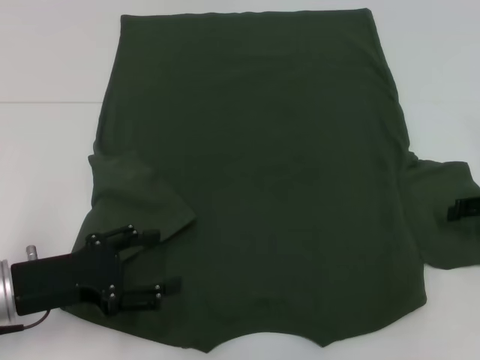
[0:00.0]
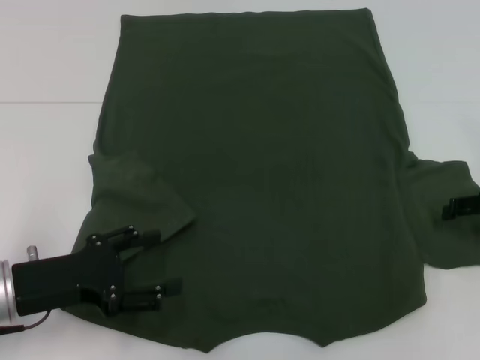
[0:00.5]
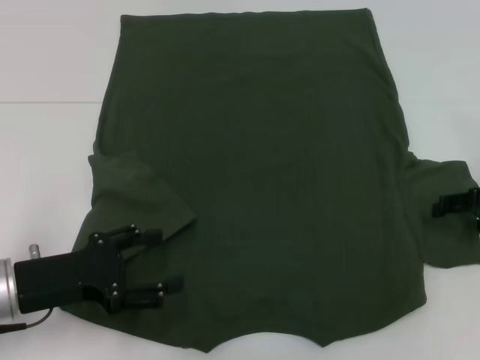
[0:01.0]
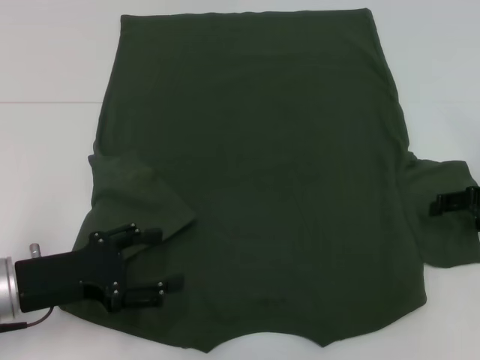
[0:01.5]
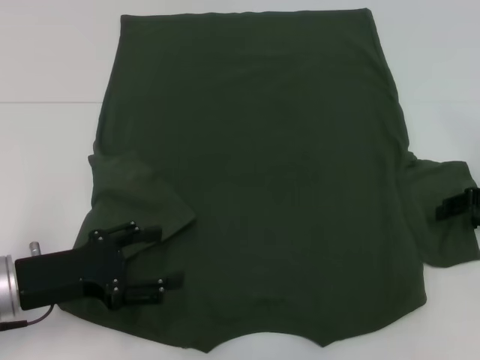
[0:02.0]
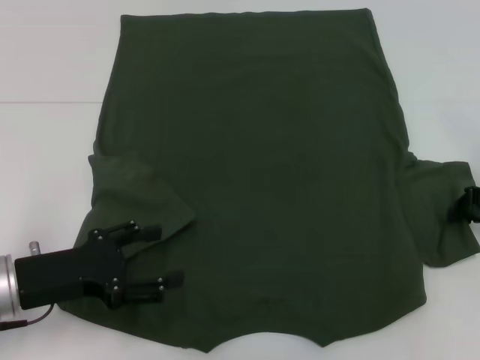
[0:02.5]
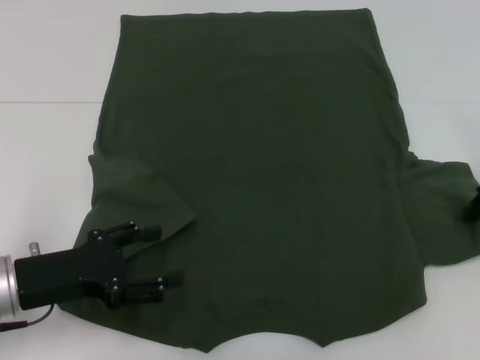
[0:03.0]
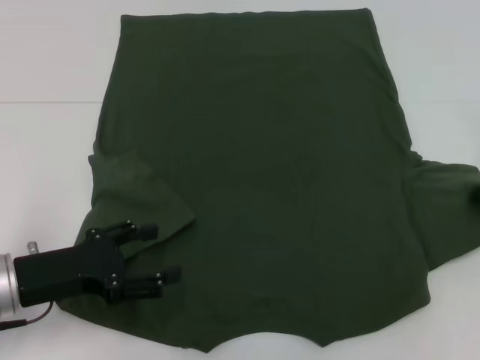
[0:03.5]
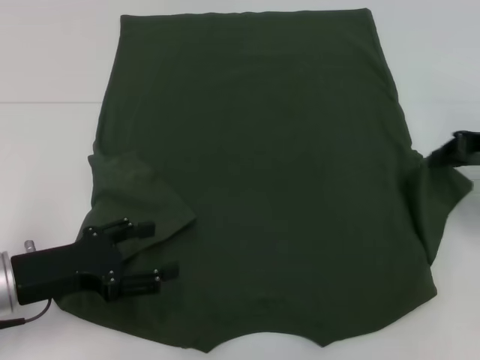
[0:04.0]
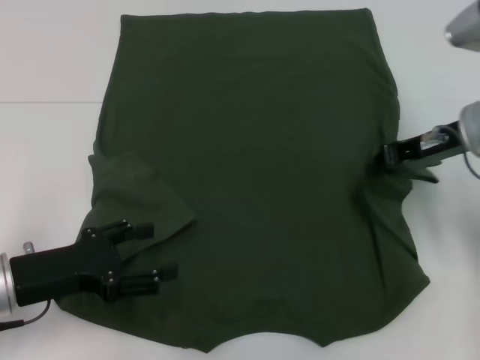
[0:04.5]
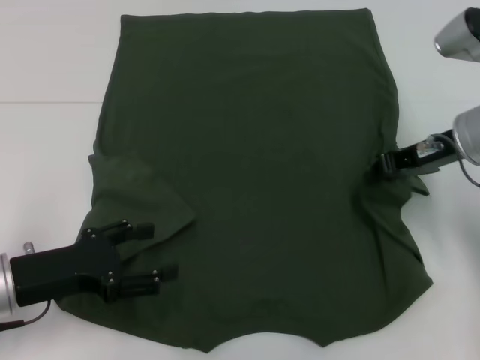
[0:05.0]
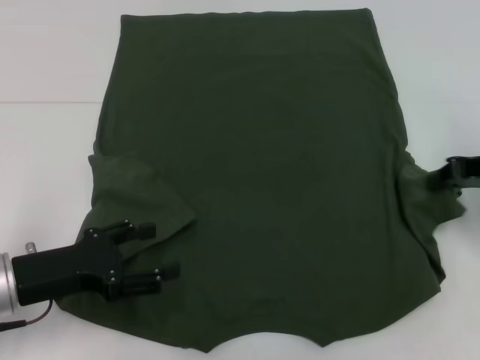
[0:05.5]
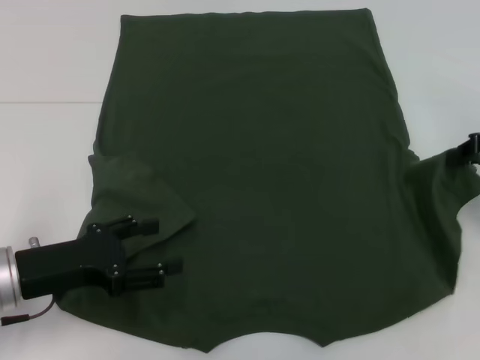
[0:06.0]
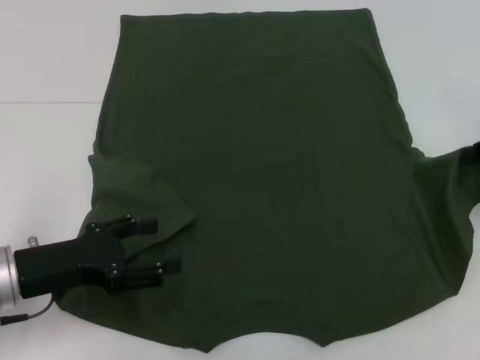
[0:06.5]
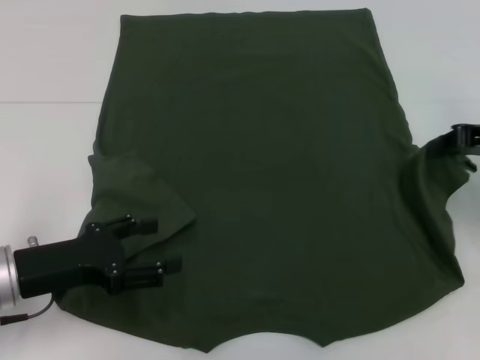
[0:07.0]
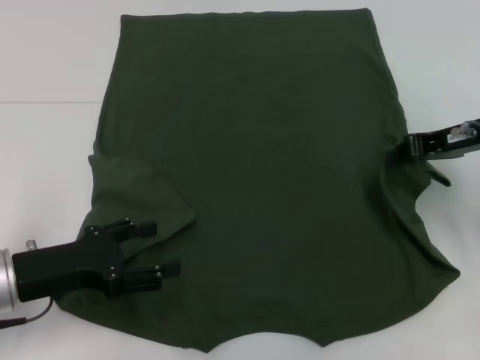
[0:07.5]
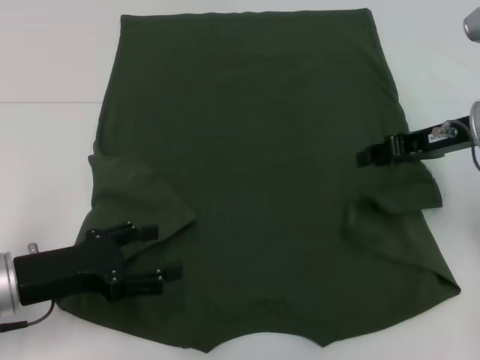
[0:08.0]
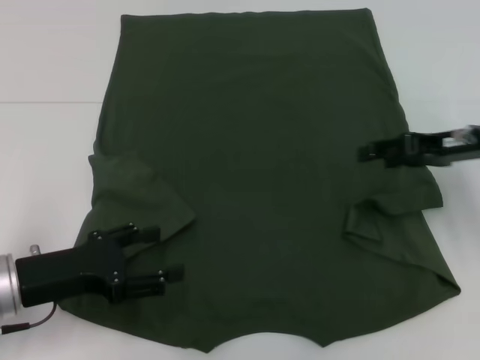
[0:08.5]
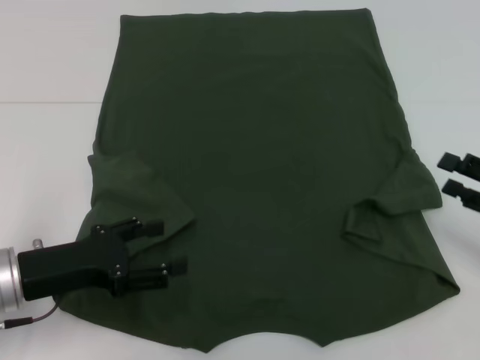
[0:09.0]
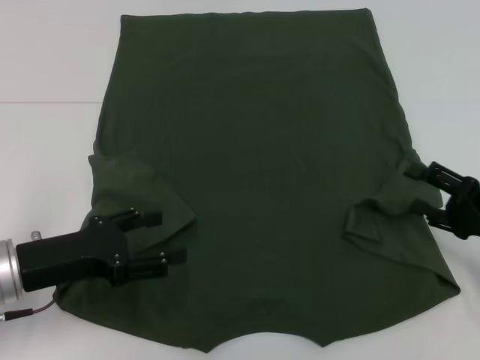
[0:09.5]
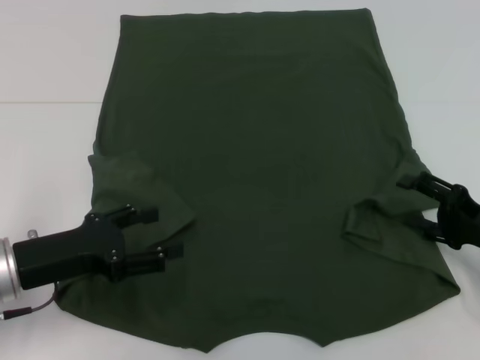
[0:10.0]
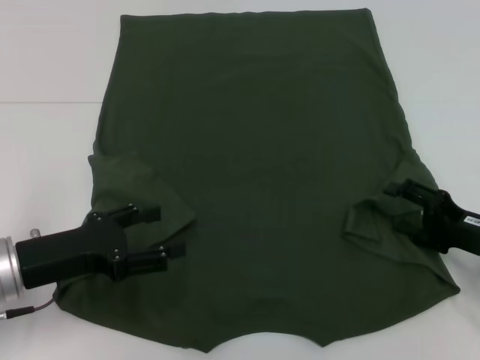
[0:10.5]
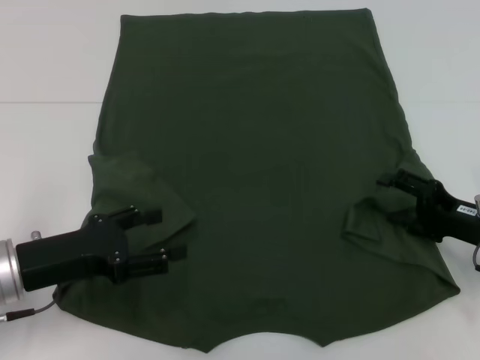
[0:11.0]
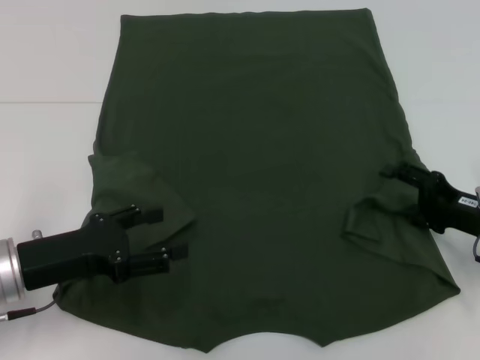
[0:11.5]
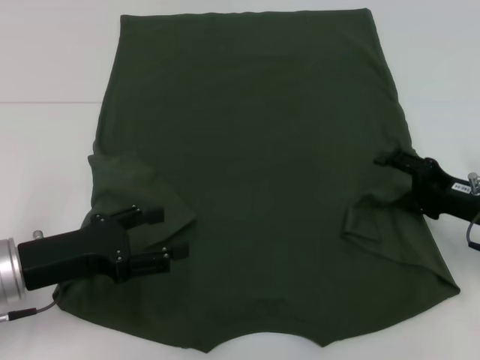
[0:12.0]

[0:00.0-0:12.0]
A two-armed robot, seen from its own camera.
0:00.0 to 0:02.0: The grippers make only small movements.
0:02.0 to 0:04.0: The right gripper is displaced upward by roughly 5 cm, and closes.
0:04.0 to 0:06.0: The right gripper moves some 10 cm to the left and comes back.
0:06.0 to 0:08.0: The right gripper moves to the left, roughly 10 cm.
0:08.0 to 0:10.0: The right gripper heads downward, backward and to the right, covering roughly 15 cm, and opens its fingers.
0:10.0 to 0:12.0: The grippers move only a little.

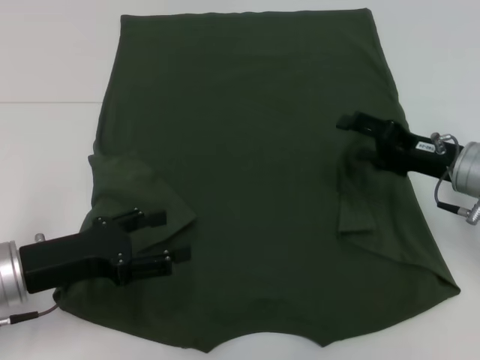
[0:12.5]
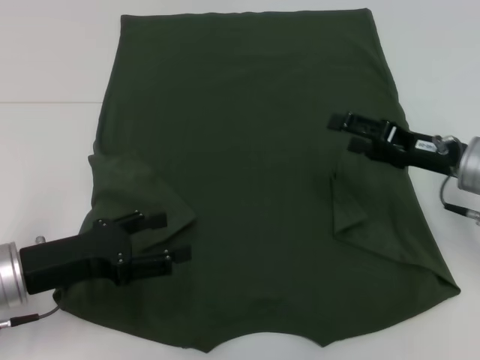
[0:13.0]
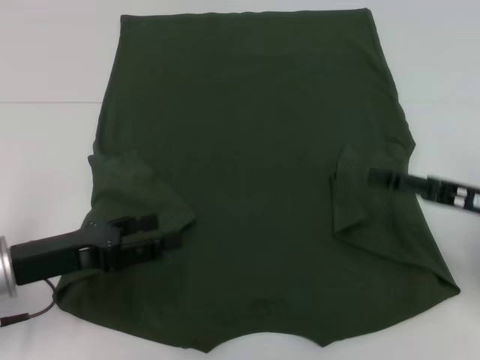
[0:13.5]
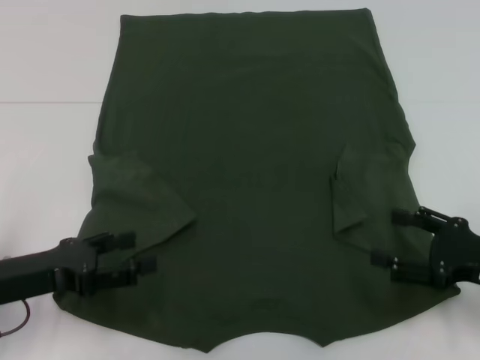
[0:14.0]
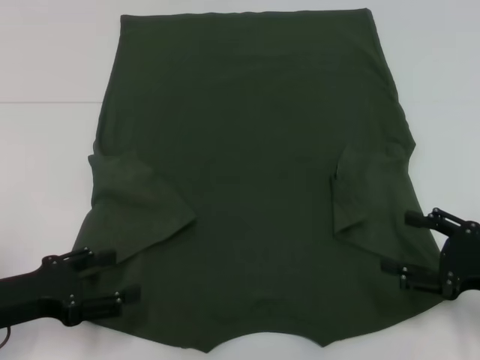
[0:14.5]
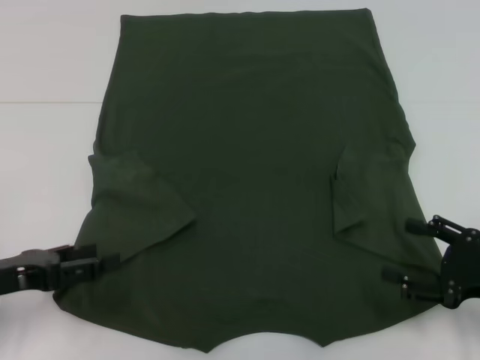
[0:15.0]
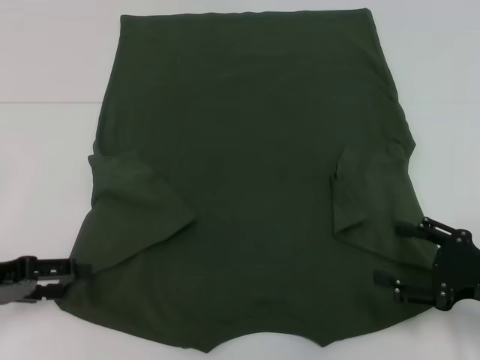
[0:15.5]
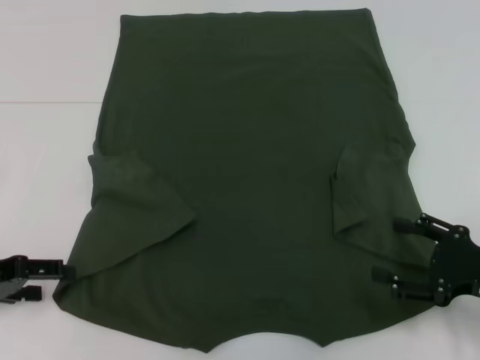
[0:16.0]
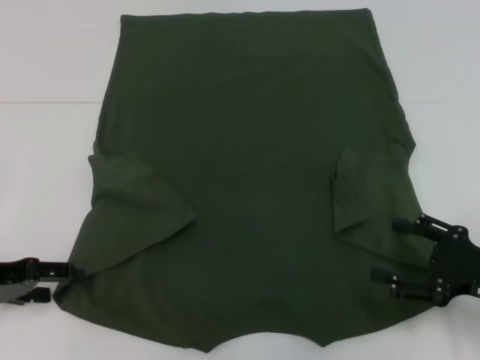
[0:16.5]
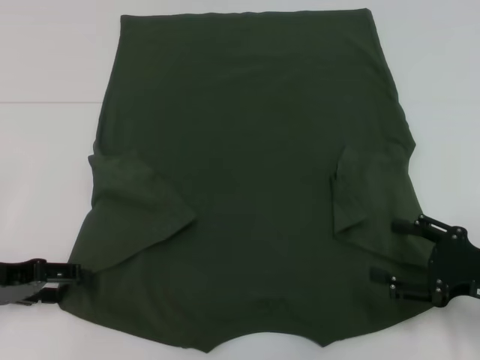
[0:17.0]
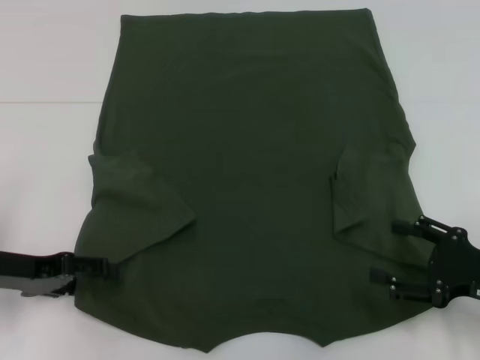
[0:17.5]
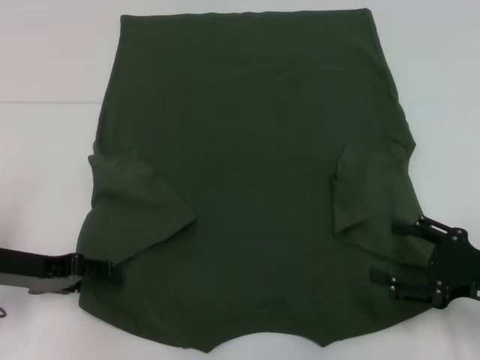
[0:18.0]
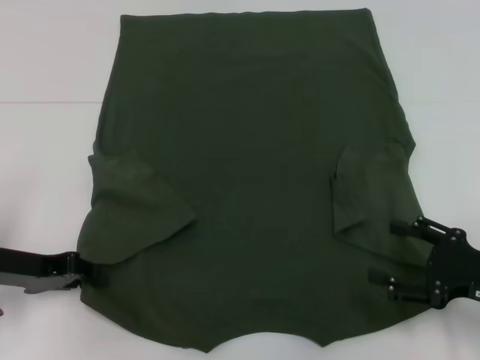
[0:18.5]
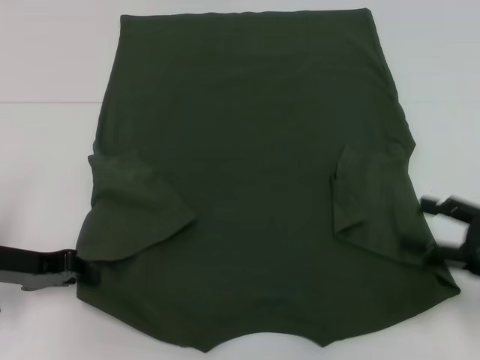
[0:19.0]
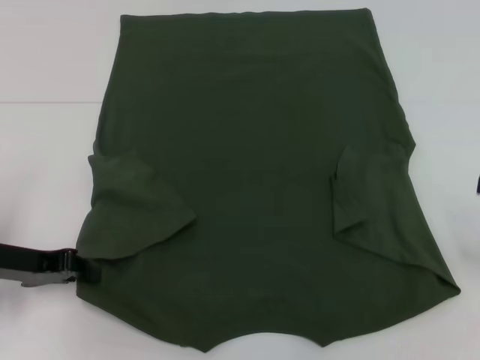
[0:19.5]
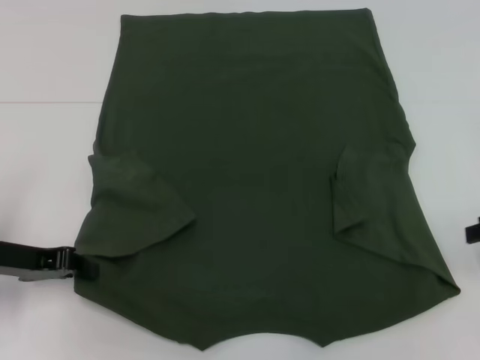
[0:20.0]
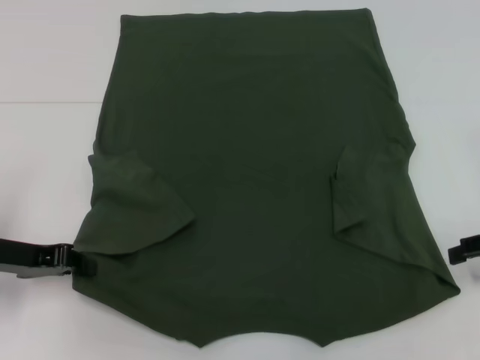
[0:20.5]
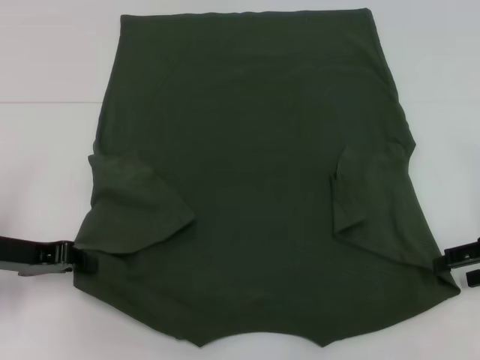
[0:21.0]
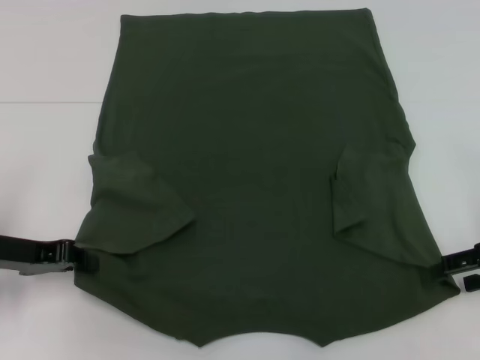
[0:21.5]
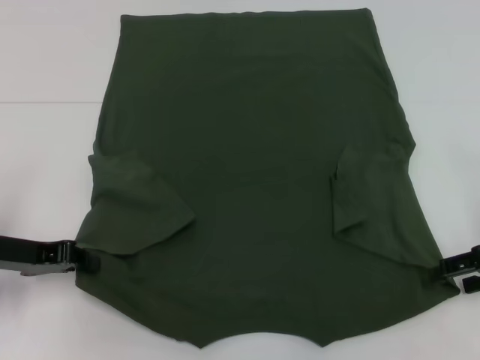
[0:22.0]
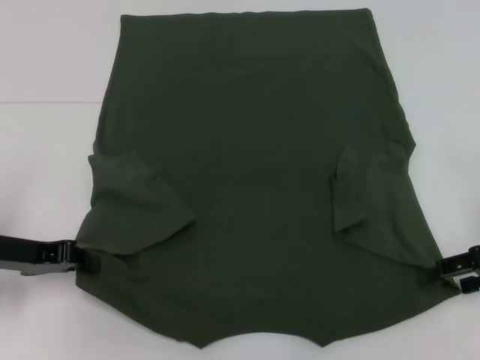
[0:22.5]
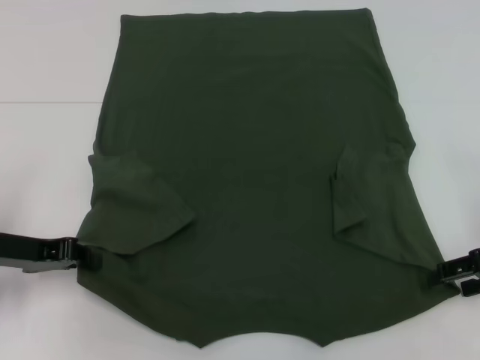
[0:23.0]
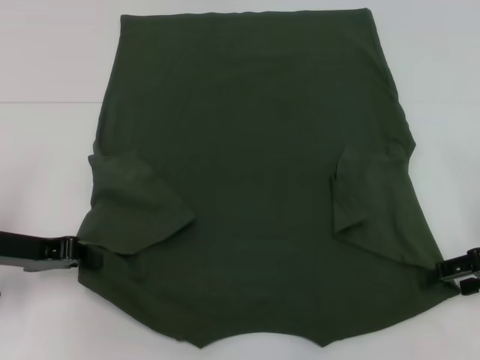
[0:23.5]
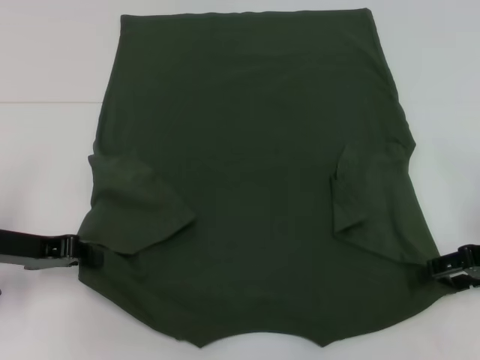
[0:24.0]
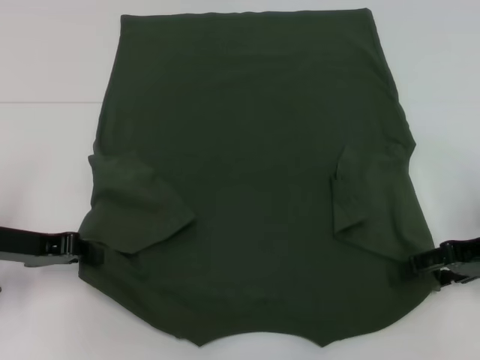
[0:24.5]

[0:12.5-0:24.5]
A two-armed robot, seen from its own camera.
Step, 0:13.5 to 0:18.5: Grab the bottom left corner with your left hand.
0:12.5 to 0:14.5: The right gripper travels backward and to the right by approximately 15 cm. Meanwhile the left gripper changes place by about 5 cm.
0:14.5 to 0:16.5: The left gripper changes place by approximately 5 cm.
0:16.5 to 0:18.5: The left gripper closes.
0:18.5 to 0:20.5: The left gripper closes up, while the right gripper travels upward, forward and to the right by some 10 cm.
0:20.5 to 0:24.5: The grippers make only small movements.

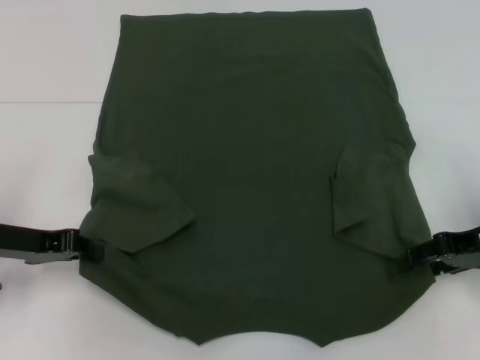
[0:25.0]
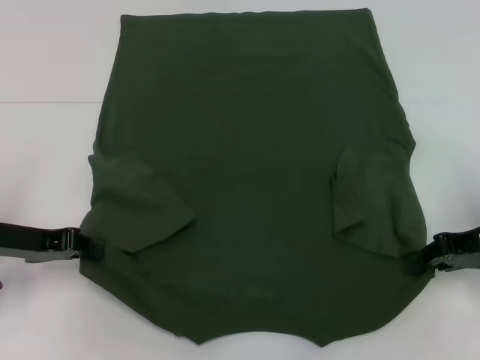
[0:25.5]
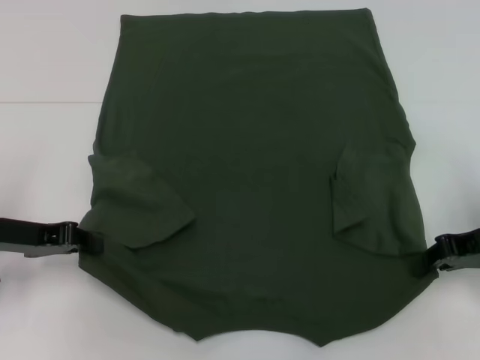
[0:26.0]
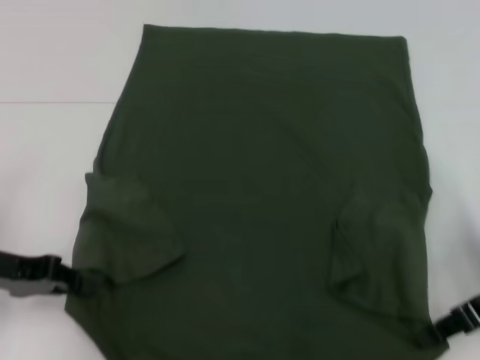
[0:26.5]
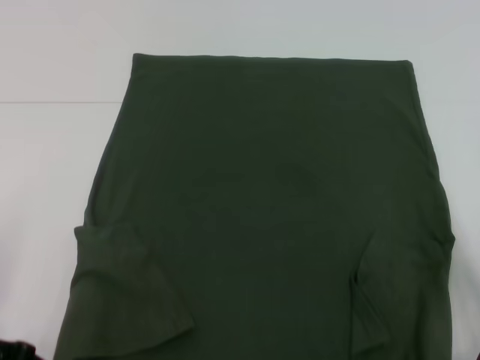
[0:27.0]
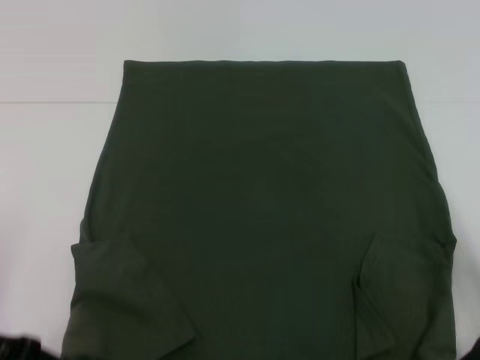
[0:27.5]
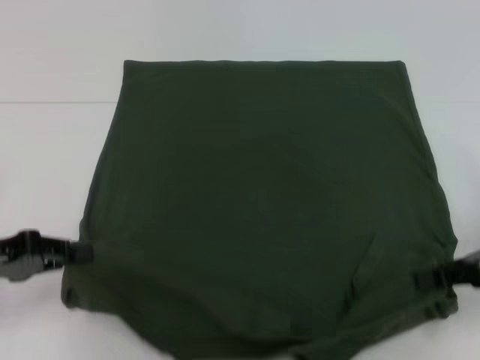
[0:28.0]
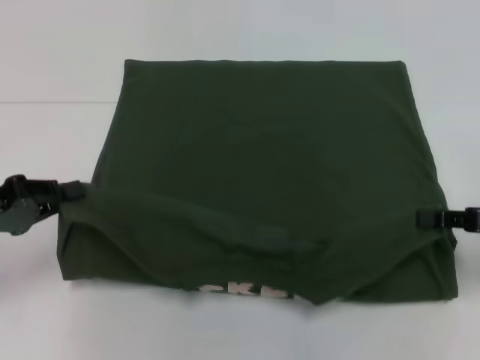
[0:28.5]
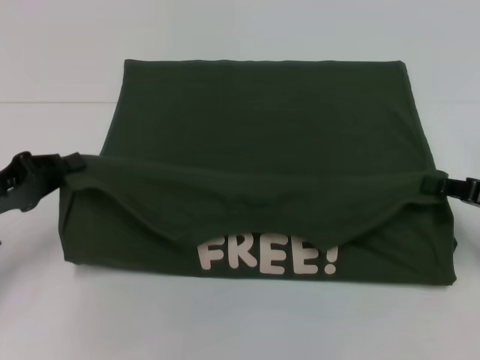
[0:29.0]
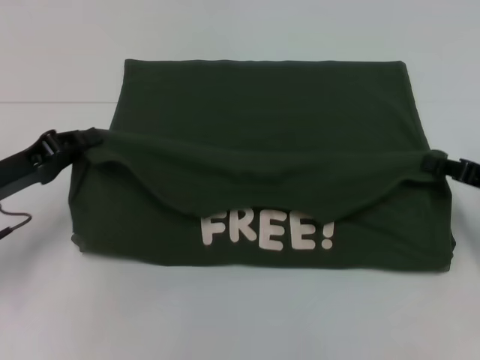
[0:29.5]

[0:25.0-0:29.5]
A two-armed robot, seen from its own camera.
0:25.0 to 0:27.0: The grippers both shift backward by approximately 5 cm. The right gripper closes its fingers.
0:27.0 to 0:29.5: Both grippers move forward, roughly 5 cm.
